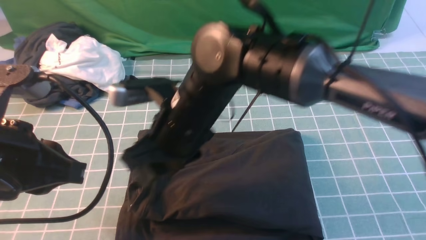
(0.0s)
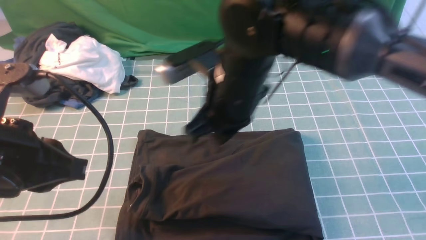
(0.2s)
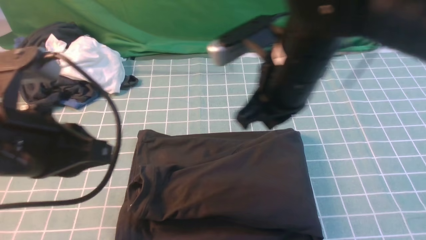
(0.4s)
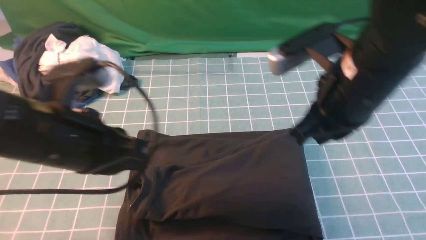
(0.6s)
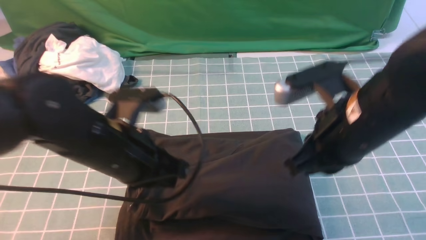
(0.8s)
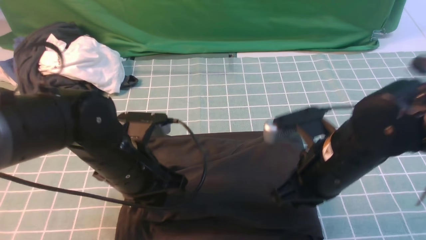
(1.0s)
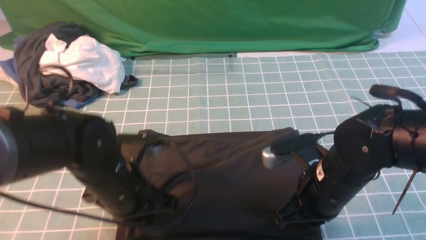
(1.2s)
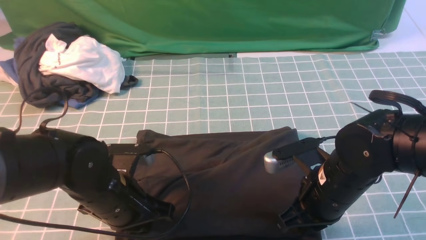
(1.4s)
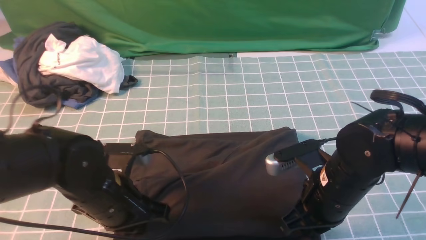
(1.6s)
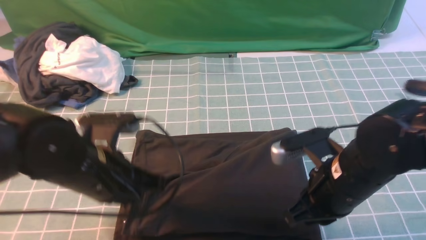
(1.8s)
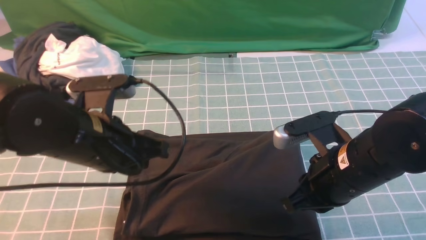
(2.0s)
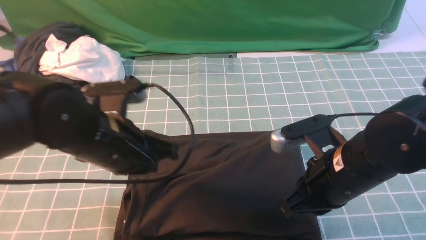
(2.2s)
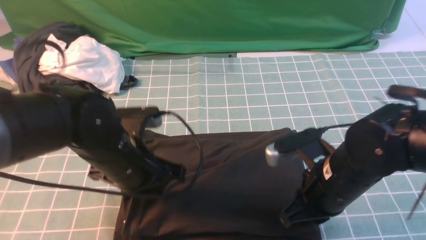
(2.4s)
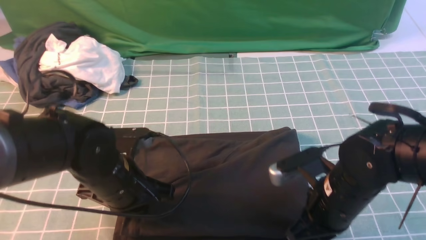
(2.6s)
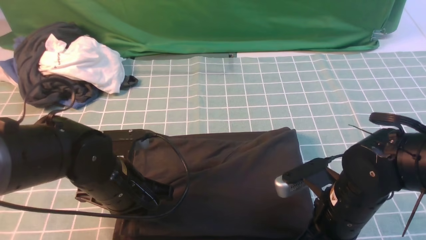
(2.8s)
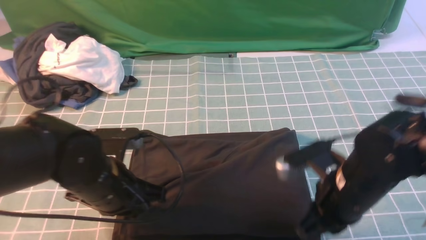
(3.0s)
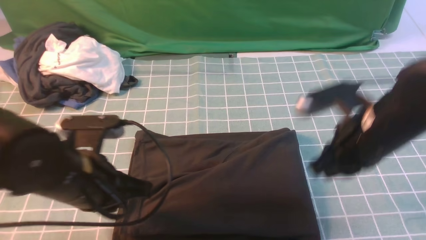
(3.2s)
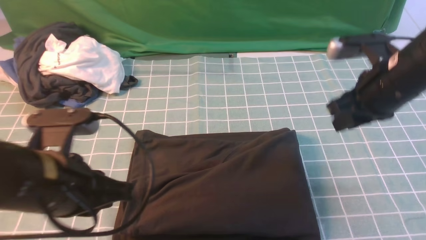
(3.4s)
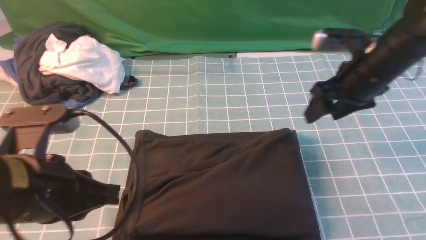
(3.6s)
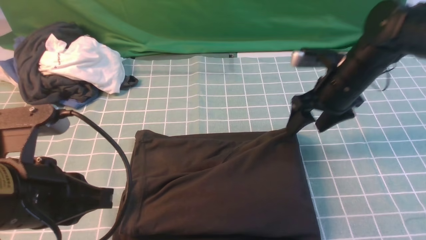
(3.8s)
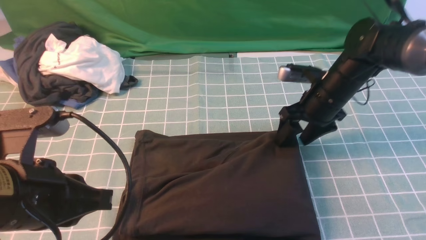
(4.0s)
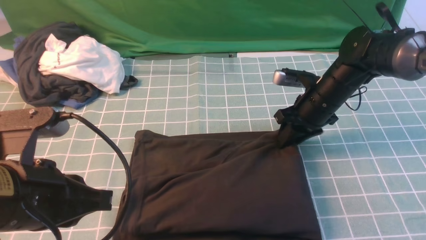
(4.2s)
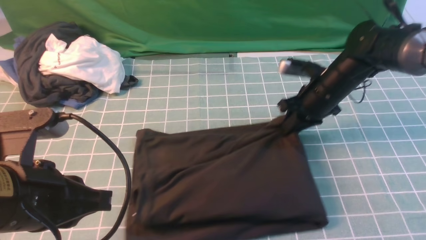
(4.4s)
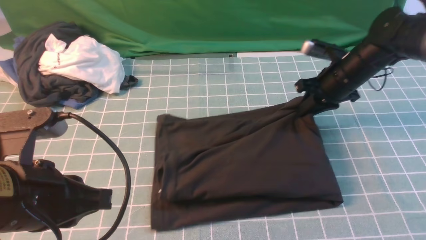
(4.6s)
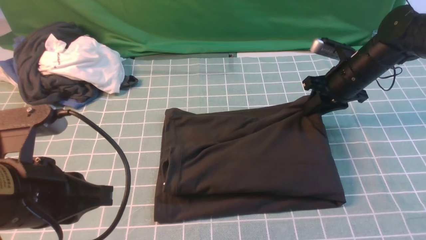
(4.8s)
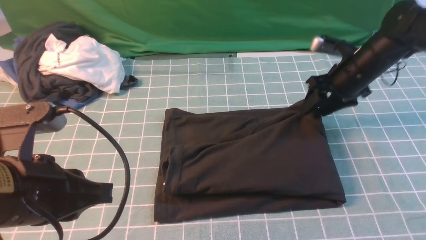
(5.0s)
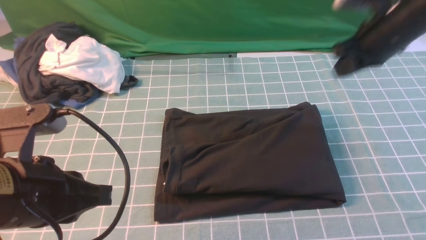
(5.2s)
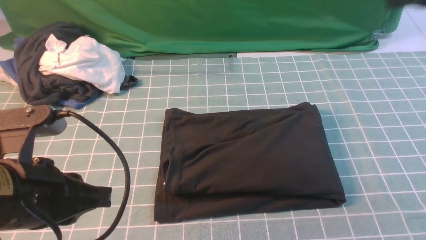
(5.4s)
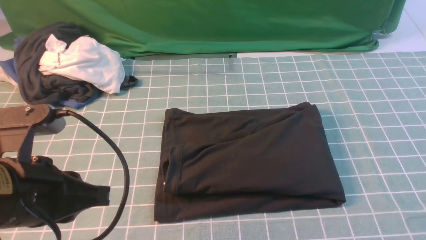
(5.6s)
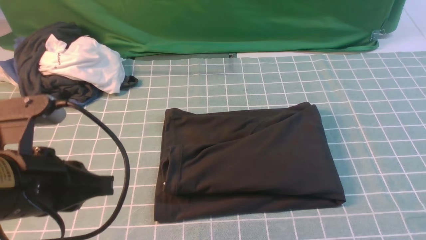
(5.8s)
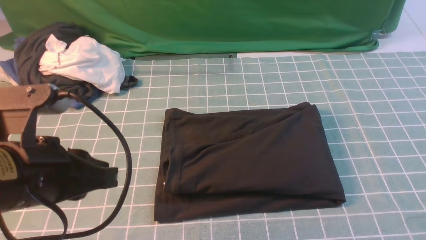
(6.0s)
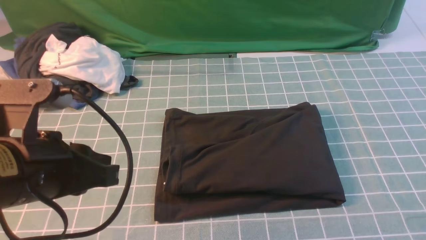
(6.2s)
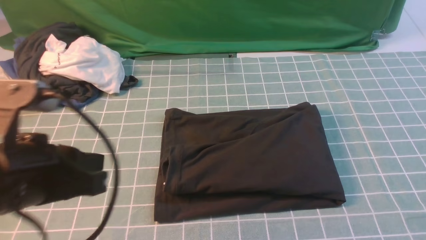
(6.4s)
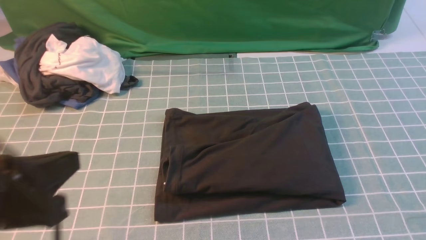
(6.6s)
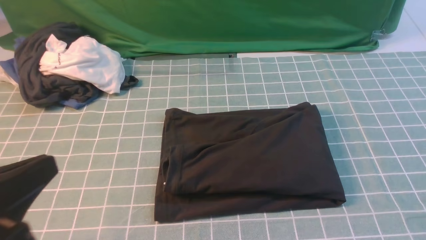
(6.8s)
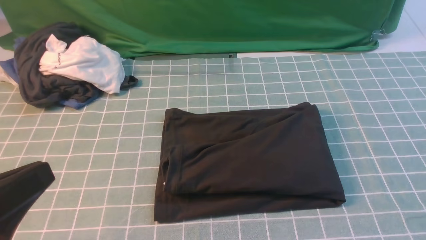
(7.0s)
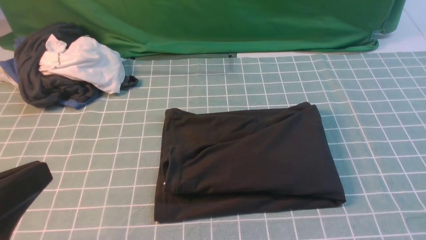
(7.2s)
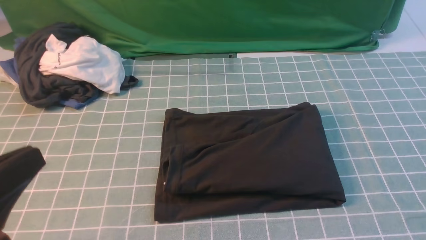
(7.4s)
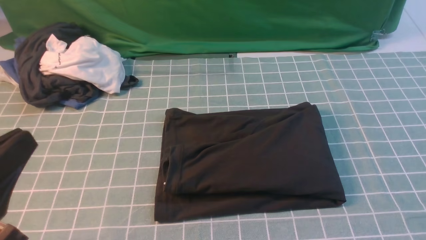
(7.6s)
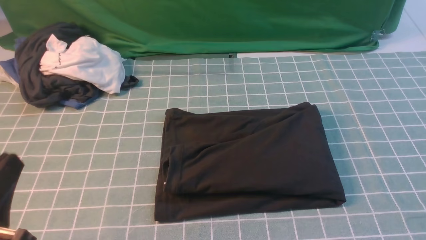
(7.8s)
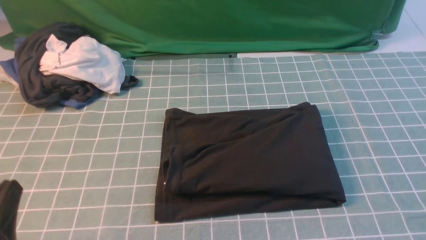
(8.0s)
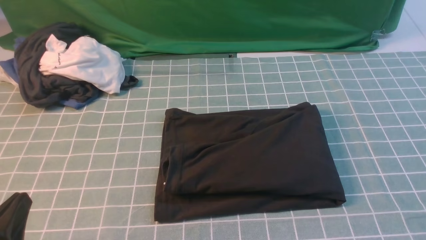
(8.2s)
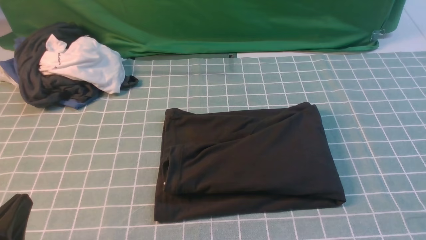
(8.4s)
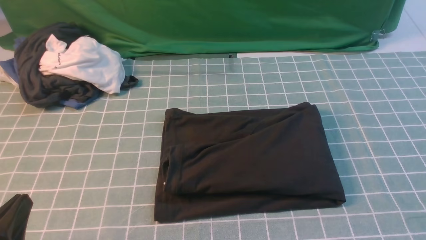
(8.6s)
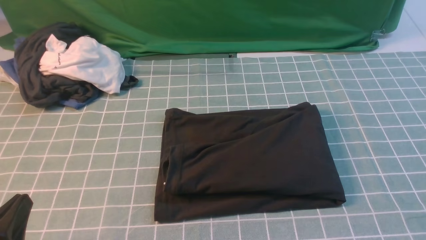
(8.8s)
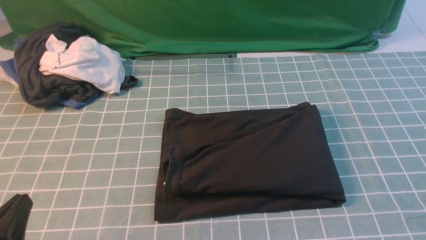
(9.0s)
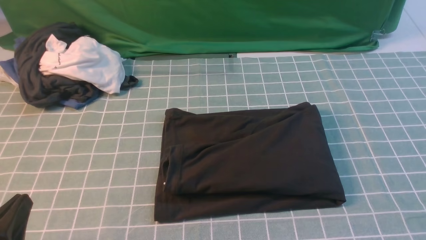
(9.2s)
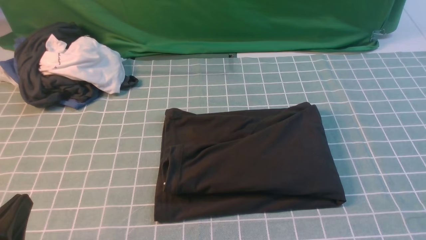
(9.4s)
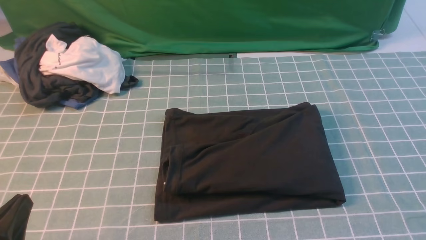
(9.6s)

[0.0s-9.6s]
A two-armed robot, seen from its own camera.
0.0s to 1.6s: The left gripper is displaced downward, to the right and forward by some 15 cm. Meanwhile the right gripper travels to the right and downward by approximately 20 cm, and closes.
1.6s to 3.2s: The right gripper is displaced upward and forward by approximately 10 cm, while the left gripper goes up and down, about 5 cm each way, reversing 2 times.
3.2s to 4.8s: The right gripper is displaced forward by roughly 20 cm, and opens and closes again; the left gripper is displaced backward and upward by approximately 10 cm.
4.8s to 6.4s: The right gripper heads backward, covering roughly 40 cm.
6.4s to 8.0s: The left gripper heads downward, backward and to the left, covering roughly 15 cm.

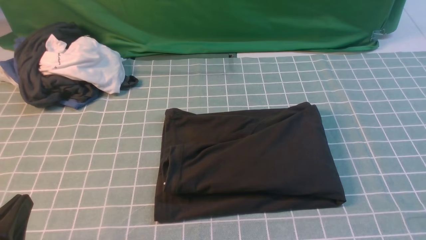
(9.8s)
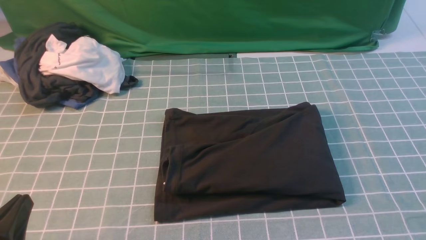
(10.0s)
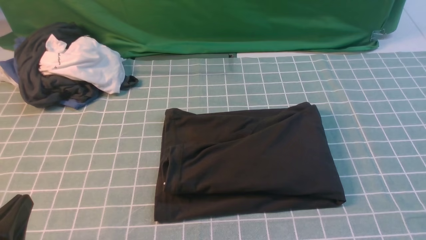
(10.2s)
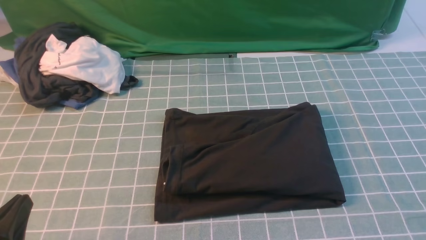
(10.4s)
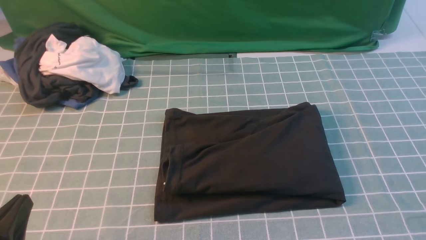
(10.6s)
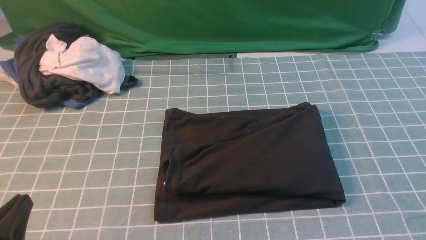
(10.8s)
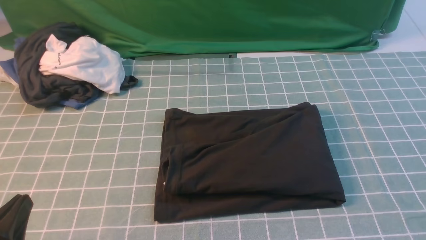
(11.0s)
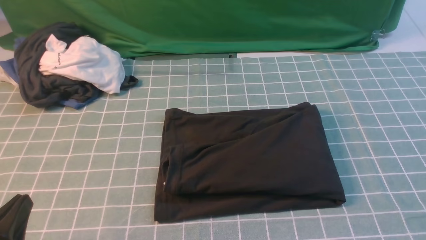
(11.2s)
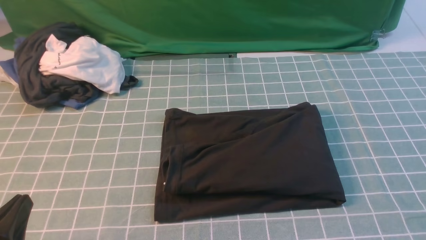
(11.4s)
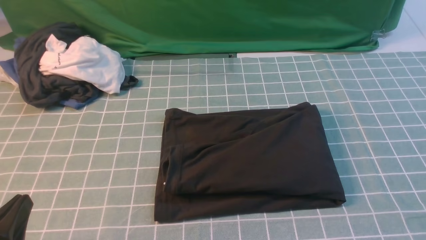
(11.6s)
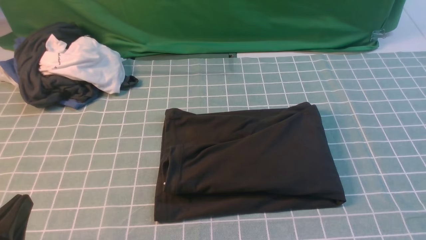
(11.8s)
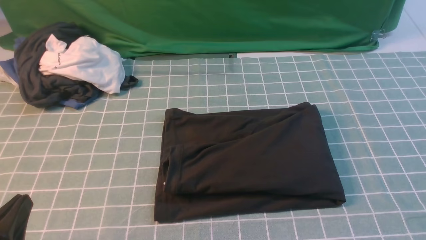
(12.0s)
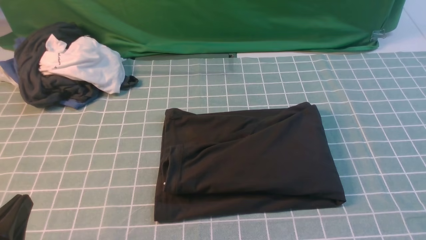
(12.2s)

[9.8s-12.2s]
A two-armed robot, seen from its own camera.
11.0s to 12.2s: Both grippers stay put.

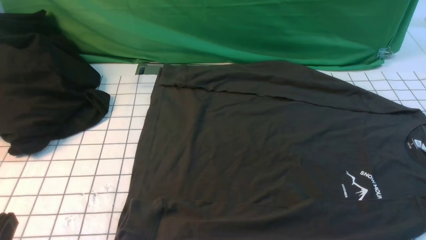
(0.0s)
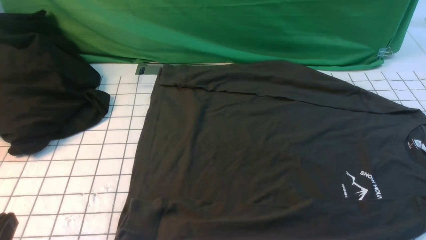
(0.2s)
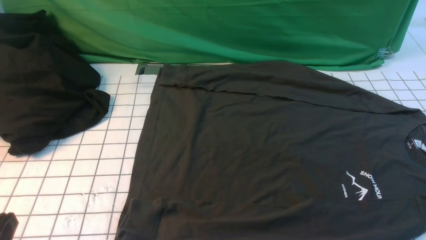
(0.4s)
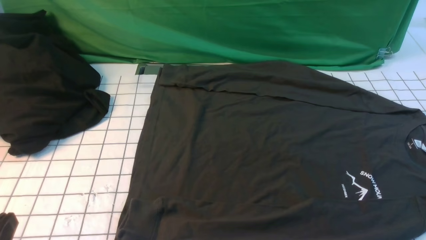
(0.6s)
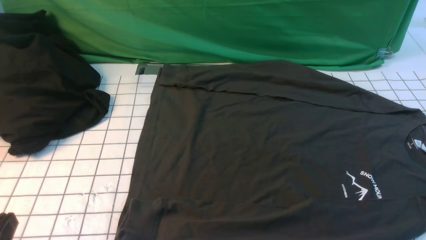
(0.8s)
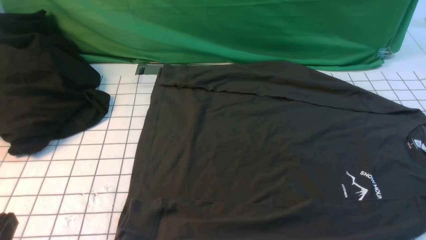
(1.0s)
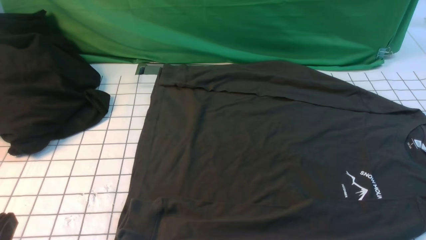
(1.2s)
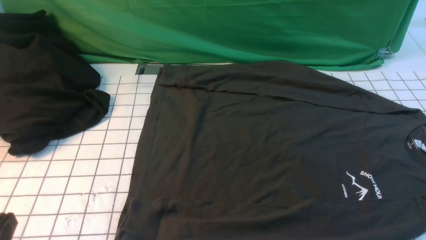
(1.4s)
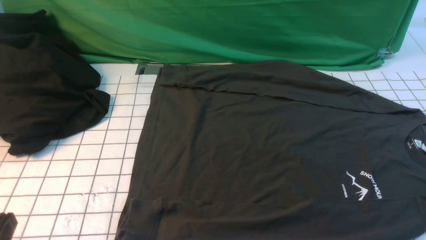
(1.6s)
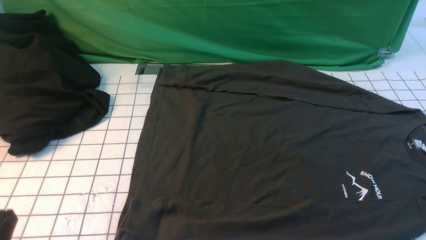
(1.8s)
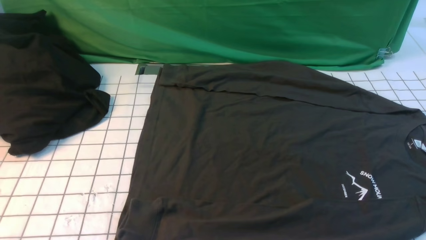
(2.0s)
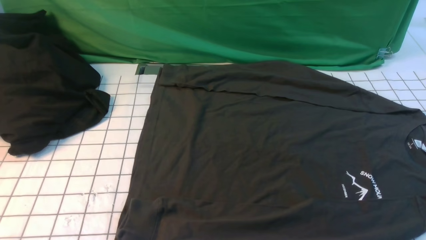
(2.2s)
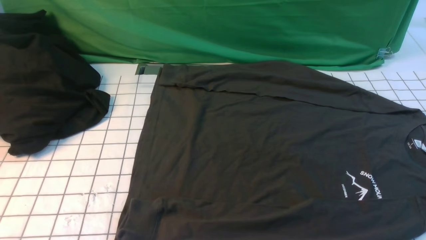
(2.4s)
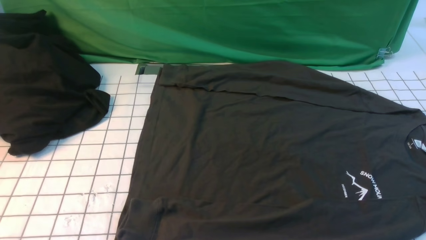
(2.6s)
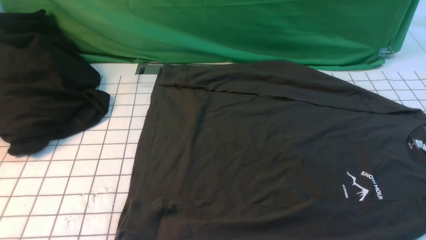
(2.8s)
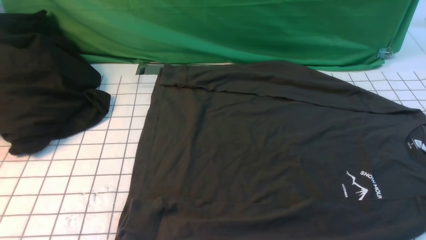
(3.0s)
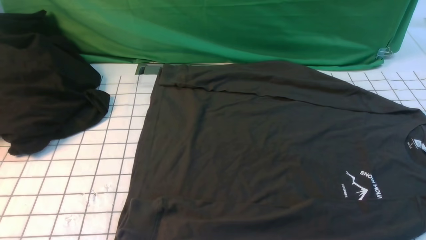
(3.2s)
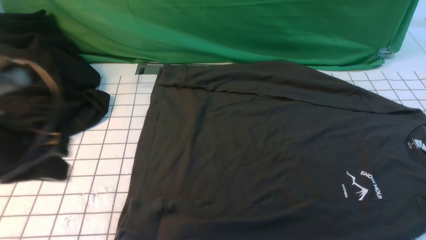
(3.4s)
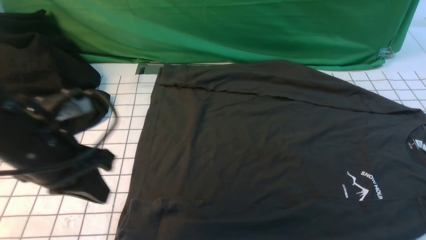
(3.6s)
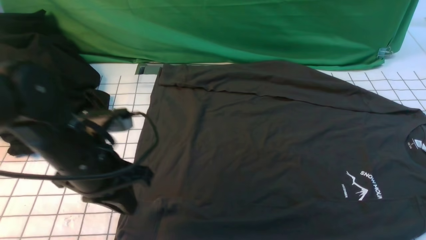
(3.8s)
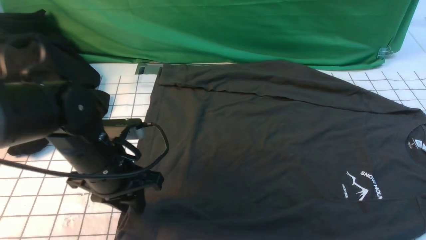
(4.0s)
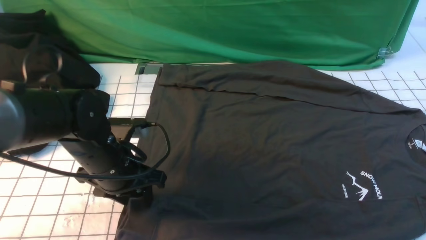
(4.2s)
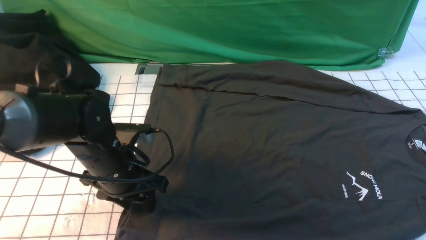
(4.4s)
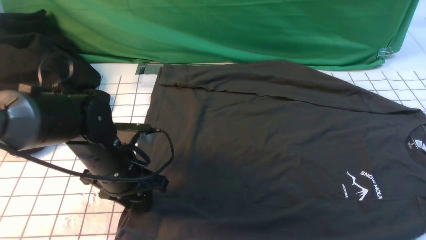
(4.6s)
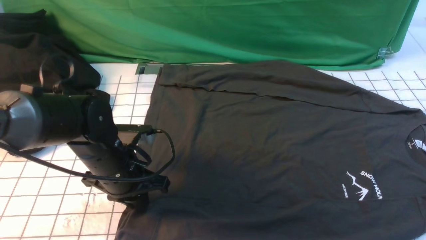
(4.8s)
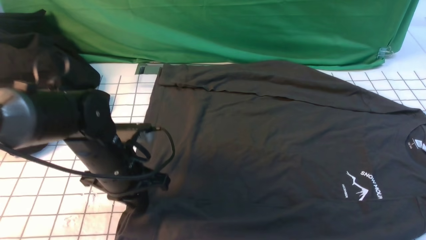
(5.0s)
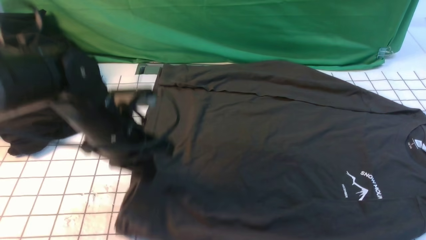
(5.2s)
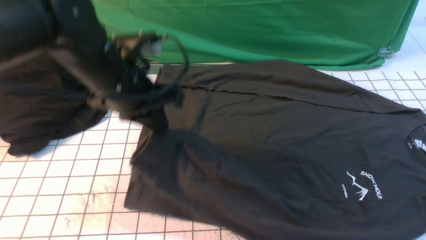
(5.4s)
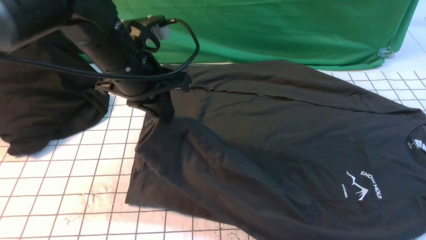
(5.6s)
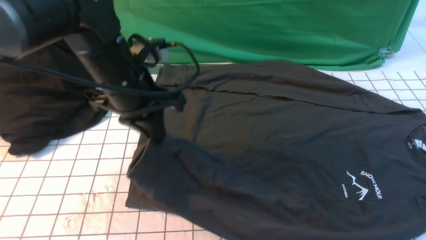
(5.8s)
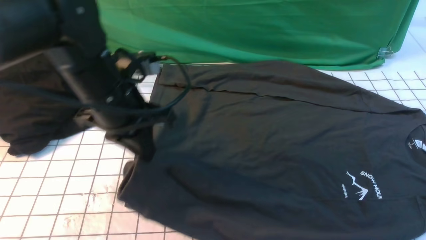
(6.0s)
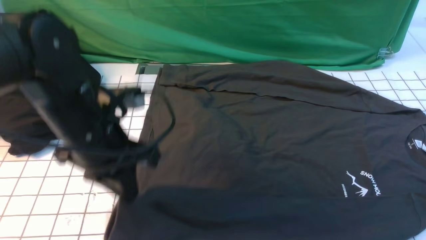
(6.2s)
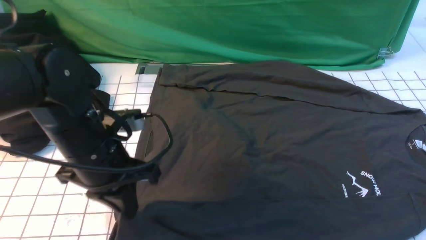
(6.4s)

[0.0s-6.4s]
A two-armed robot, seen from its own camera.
Step, 0.0s to 4.6s: use the left arm to clamp the cuff closest to it.
0.0s to 1.6s: Both grippers stay put.
3.2s to 4.8s: The right gripper heads forward, covering about 5 cm, while the left gripper is displaced downward, forward and to the right by some 25 cm, and opens, then closes again.
4.8s to 6.4s: The left gripper goes roughly 10 cm upward.
